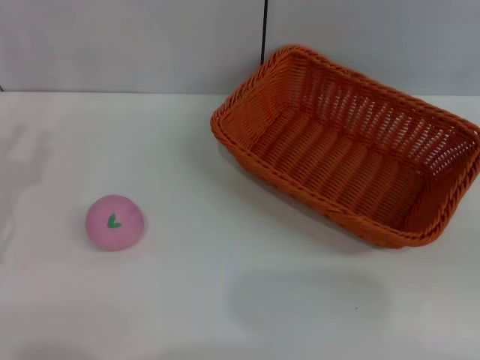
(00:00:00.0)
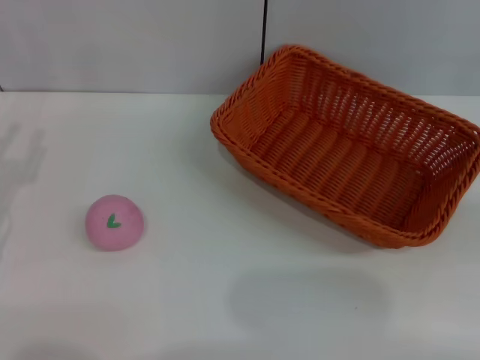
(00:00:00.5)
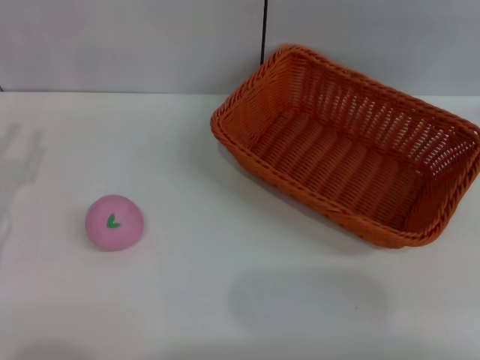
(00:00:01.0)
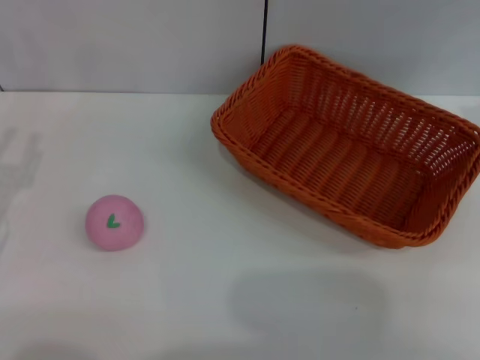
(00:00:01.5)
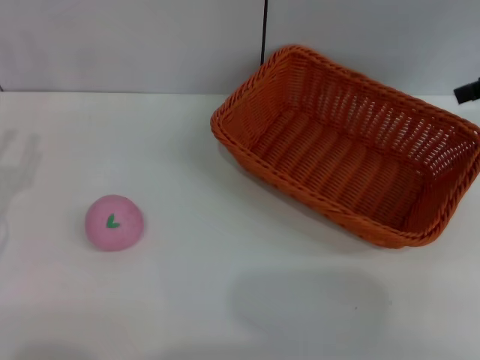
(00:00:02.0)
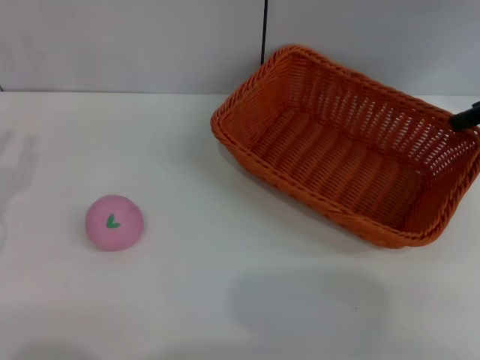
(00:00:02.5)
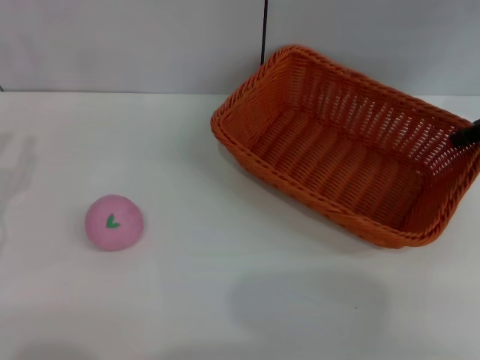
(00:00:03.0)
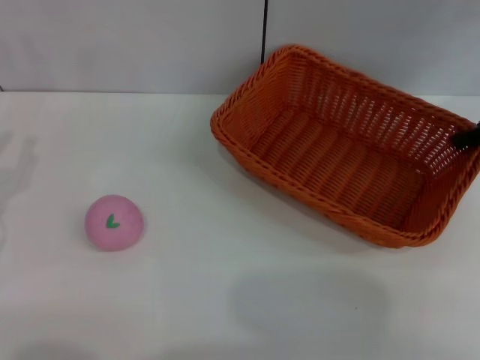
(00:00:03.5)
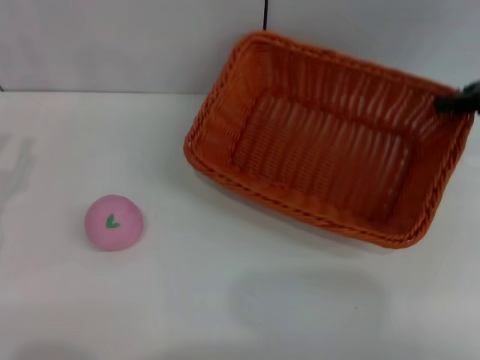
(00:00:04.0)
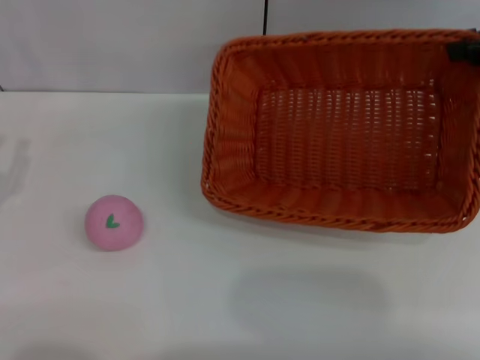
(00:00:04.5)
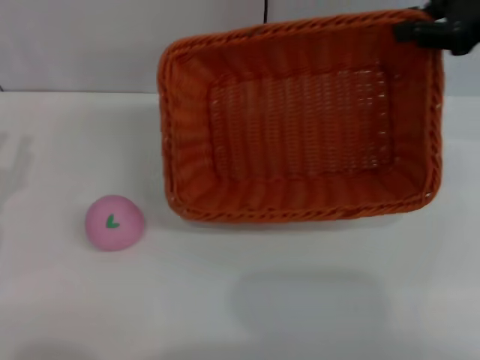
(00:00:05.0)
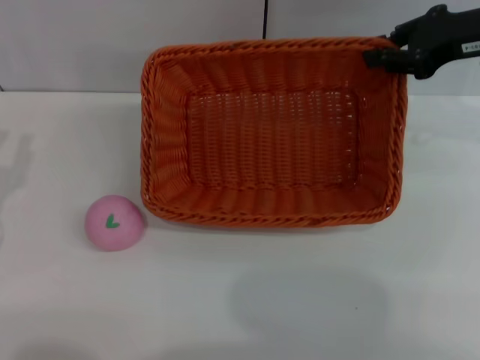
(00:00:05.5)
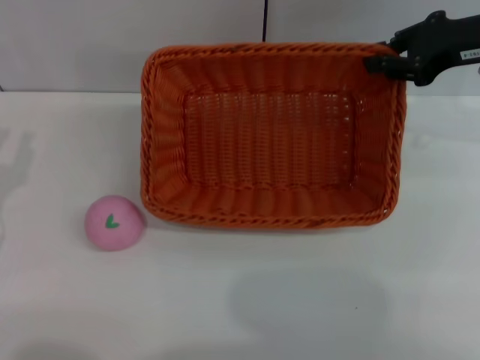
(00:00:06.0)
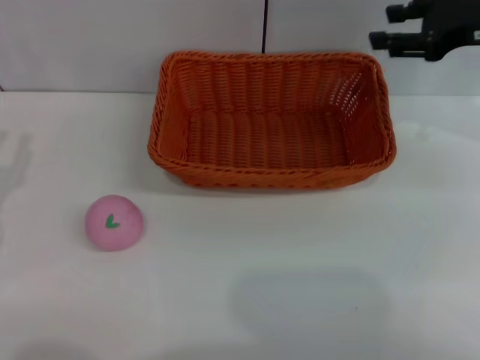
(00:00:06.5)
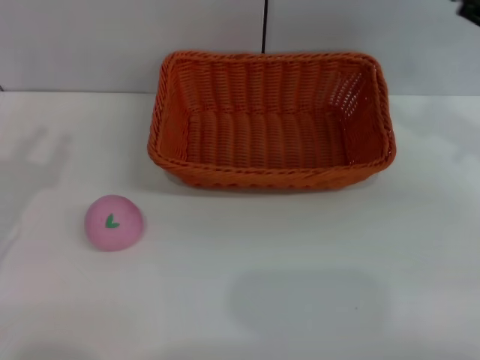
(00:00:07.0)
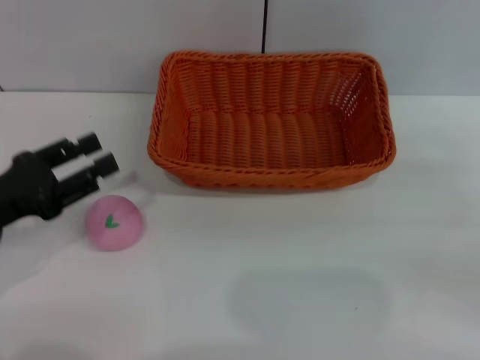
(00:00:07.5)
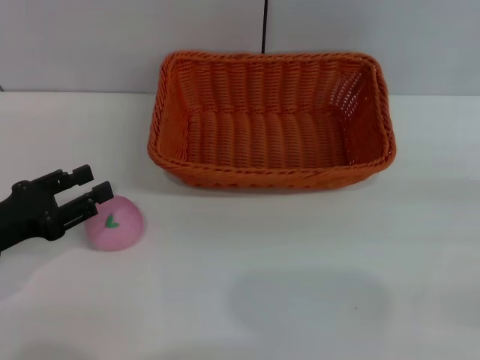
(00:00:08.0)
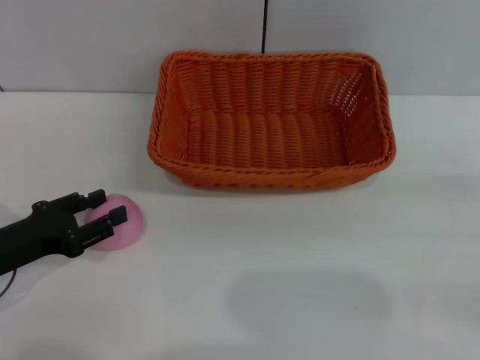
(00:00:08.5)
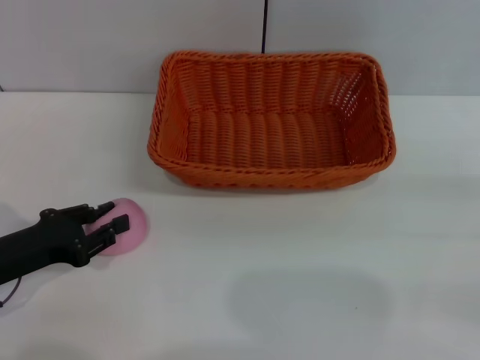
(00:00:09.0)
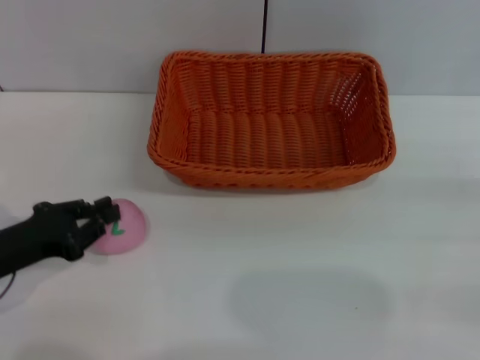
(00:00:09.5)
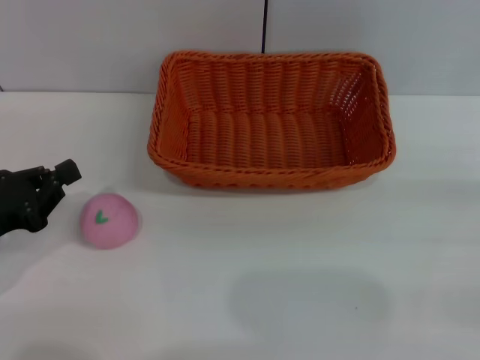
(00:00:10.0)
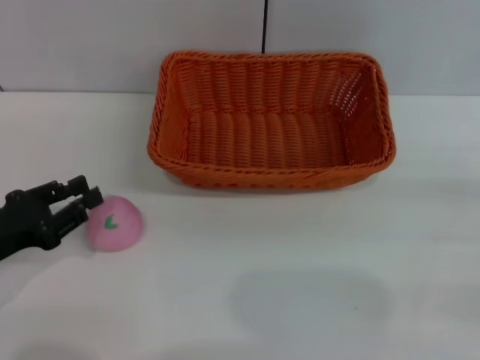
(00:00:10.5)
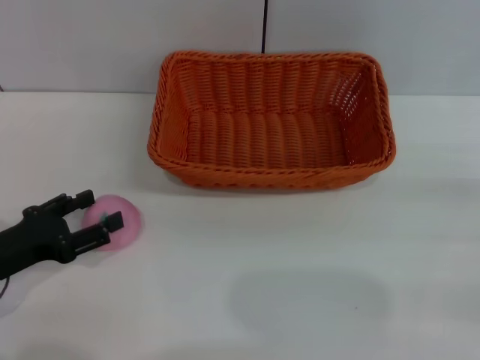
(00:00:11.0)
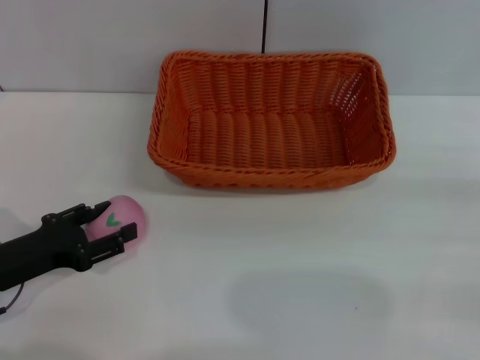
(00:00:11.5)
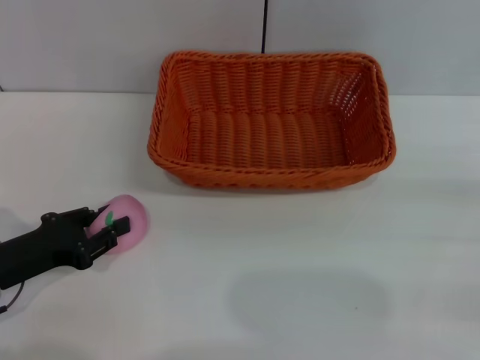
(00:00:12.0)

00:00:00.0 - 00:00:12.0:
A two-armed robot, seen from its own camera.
Step, 00:00:00.0 - 00:00:04.0: Pick up the light basket with the right gripper.
Step, 00:00:04.5 - 00:00:06.5: Place the light basket in the center of view with the right gripper.
00:00:02.0 - 00:00:04.0: The right gripper closes its fingers.
00:00:04.0 - 00:00:06.0: The right gripper changes place by roughly 5 cm.
00:00:06.0 - 00:00:08.0: The right gripper shifts some 25 cm backward, to the right and downward, and opens.
00:00:08.0 - 00:00:10.0: The left gripper closes.
00:00:10.0 - 00:00:12.0: The left gripper opens.

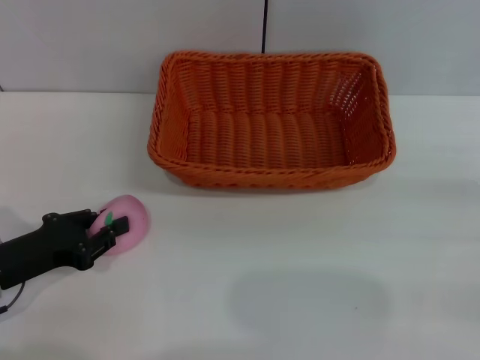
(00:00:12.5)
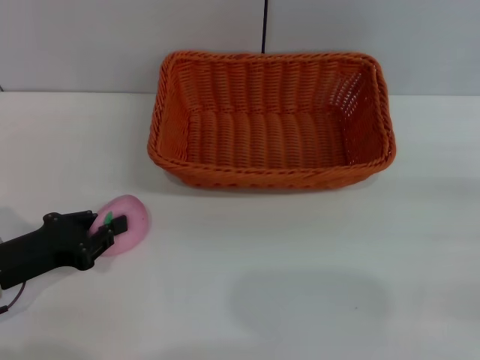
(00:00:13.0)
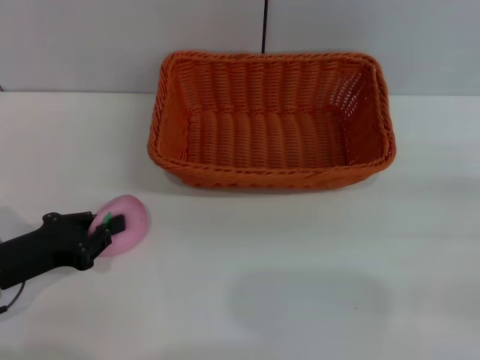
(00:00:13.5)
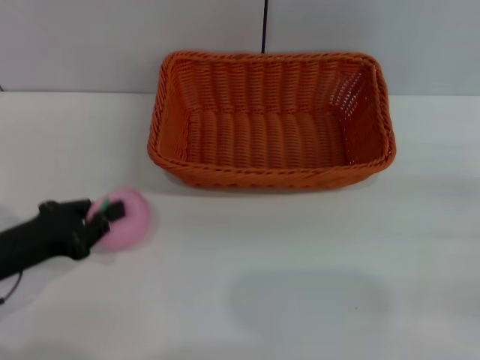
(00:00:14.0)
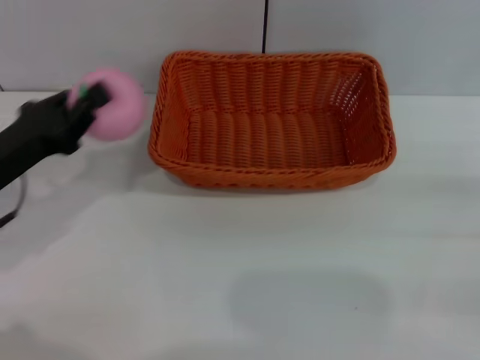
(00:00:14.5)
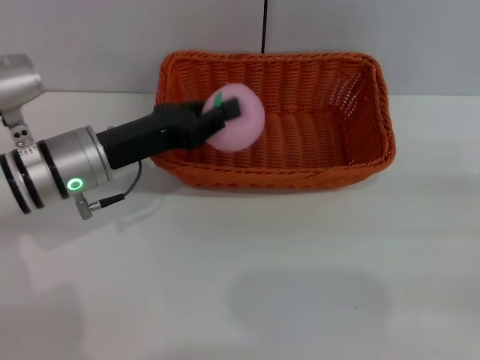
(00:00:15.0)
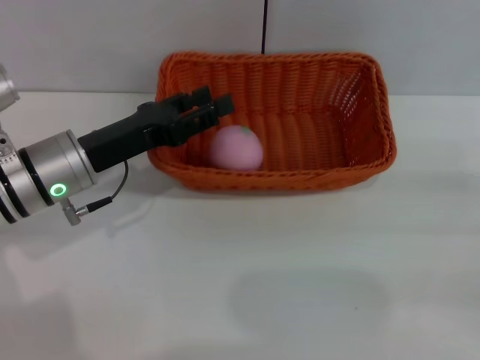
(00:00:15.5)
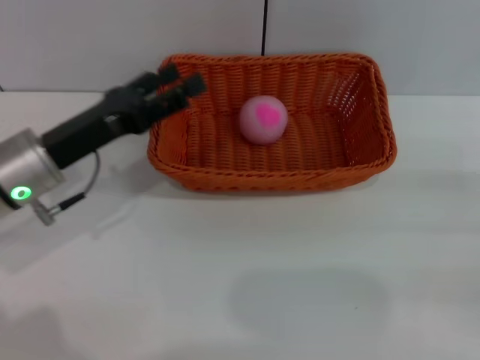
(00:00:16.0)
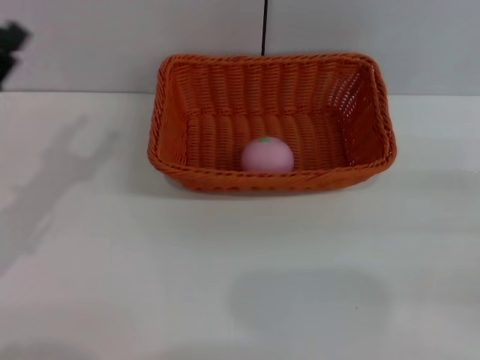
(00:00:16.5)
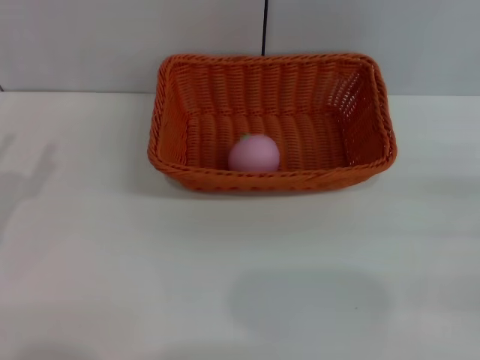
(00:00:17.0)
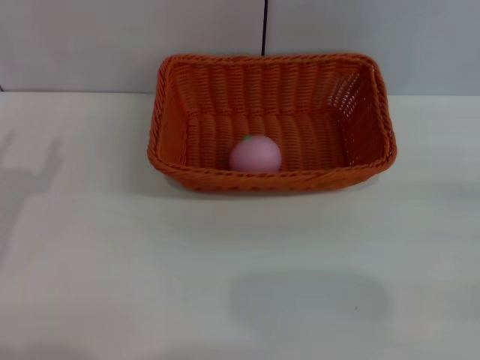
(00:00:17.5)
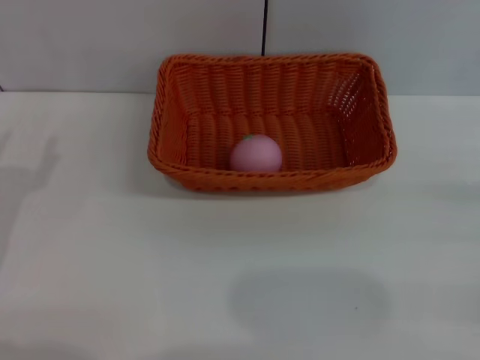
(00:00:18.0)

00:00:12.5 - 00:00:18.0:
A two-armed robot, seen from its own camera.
Step, 00:00:14.5 - 00:00:16.0: Place the peach into the basket with the left gripper.
00:00:12.5 - 00:00:14.5: The left gripper moves upward, approximately 5 cm.
00:00:14.5 - 00:00:16.0: The left gripper goes approximately 5 cm to the right, and opens.
00:00:16.0 - 00:00:18.0: The left gripper travels backward and to the left by about 10 cm.

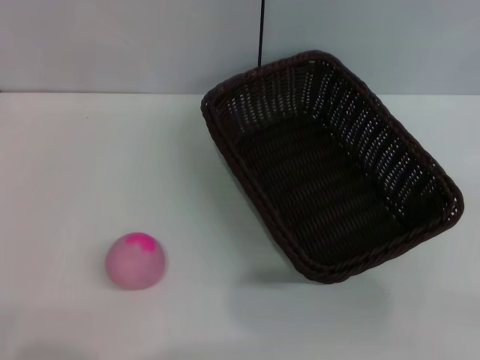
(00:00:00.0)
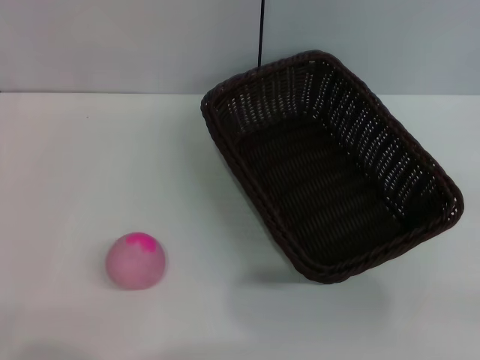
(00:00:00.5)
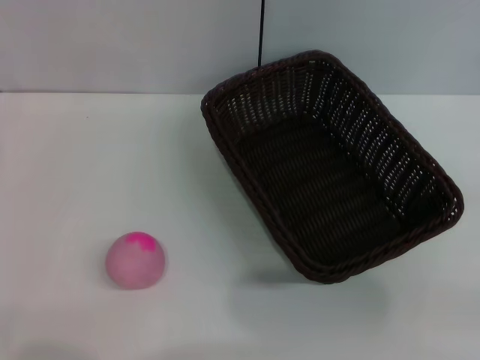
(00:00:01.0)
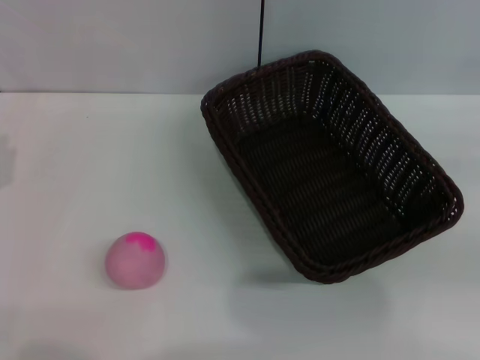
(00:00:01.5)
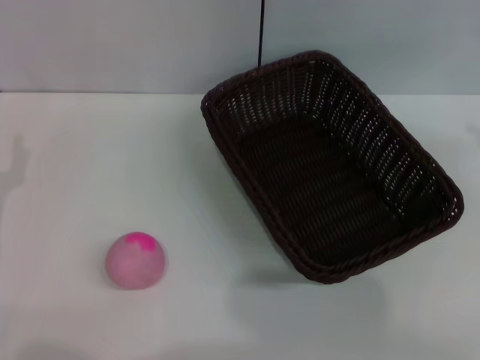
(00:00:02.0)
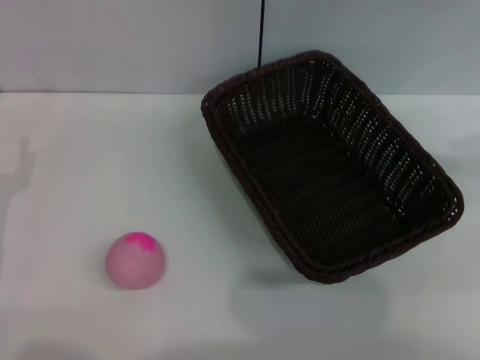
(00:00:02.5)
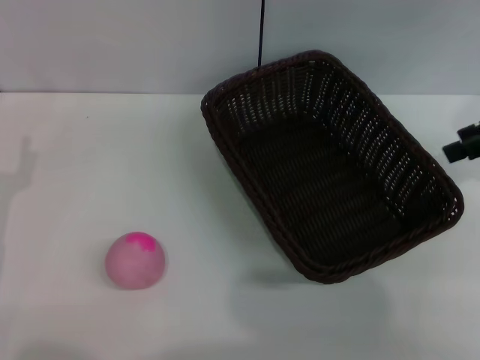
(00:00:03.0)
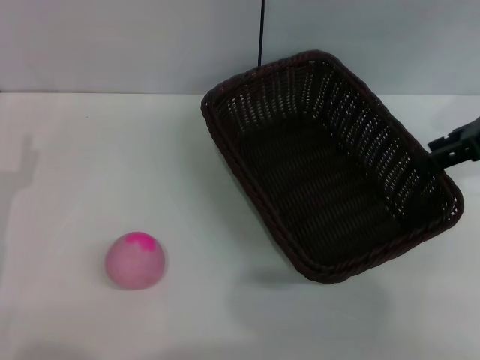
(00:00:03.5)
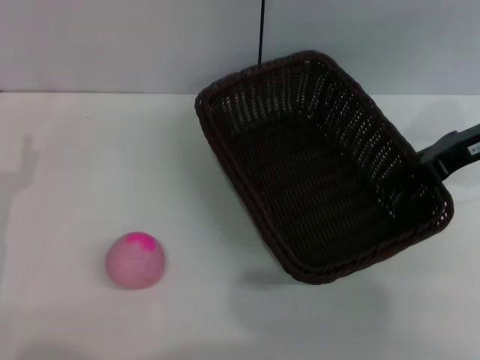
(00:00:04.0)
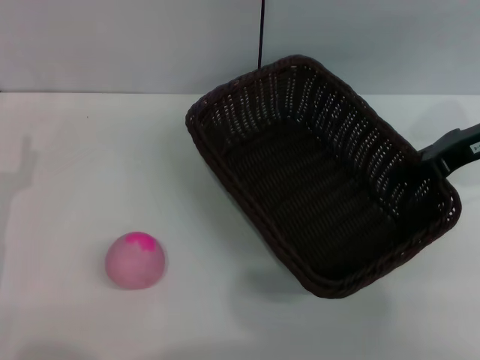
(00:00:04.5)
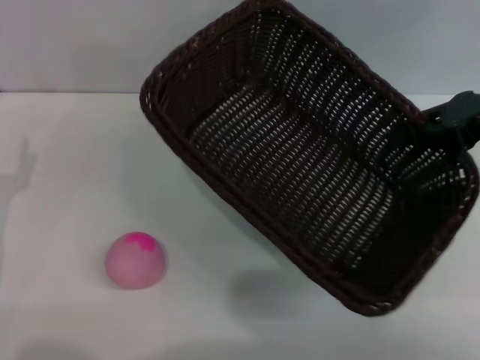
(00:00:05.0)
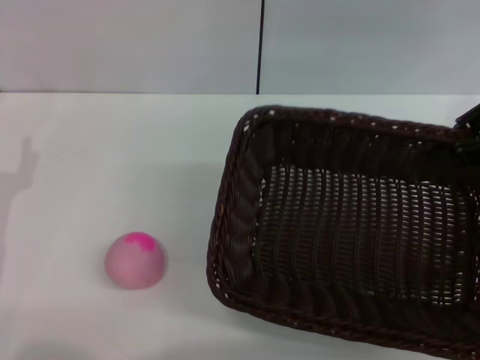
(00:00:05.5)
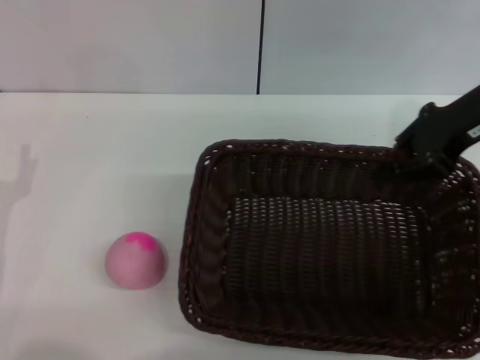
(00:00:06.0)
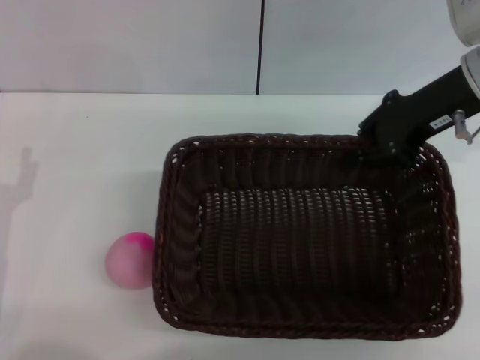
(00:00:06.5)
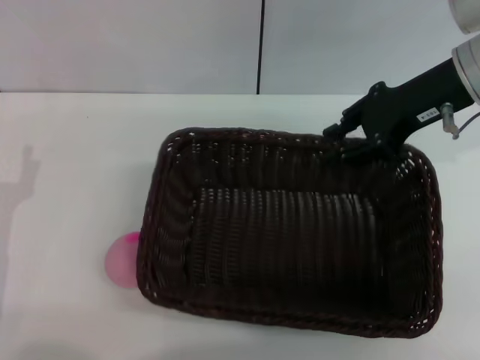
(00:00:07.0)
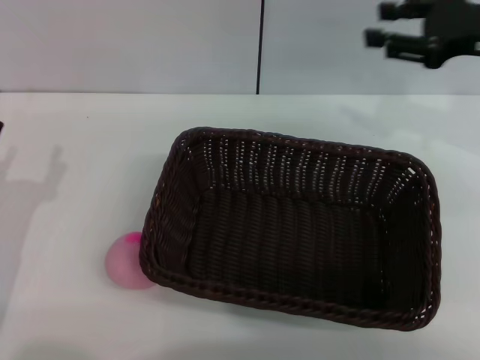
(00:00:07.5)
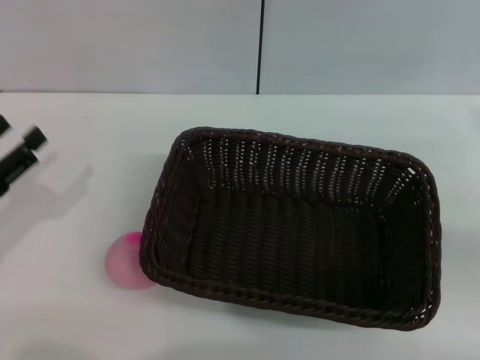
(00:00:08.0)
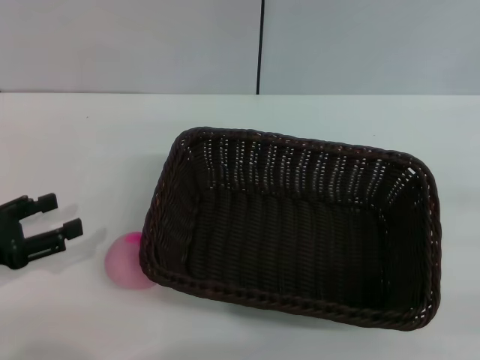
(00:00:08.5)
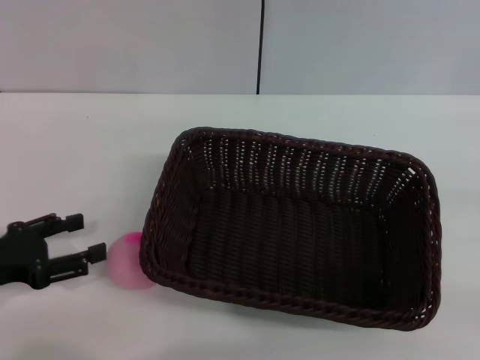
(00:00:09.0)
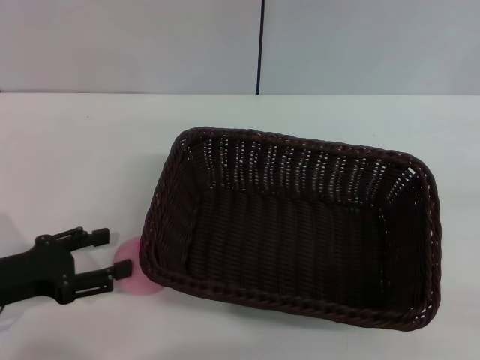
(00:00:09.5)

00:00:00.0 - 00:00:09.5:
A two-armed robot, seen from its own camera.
Step, 00:00:00.0 - 00:00:05.0: Pick up the dark basket with the right gripper.
Step, 00:00:05.5 - 00:00:07.0: Place the dark basket in the center of view with the right gripper.
00:00:02.0 - 00:00:04.0: The right gripper goes about 20 cm to the left, downward and forward.
00:00:04.0 - 00:00:05.5: The right gripper moves upward, about 5 cm, and closes up.
00:00:05.5 - 00:00:07.5: The right gripper moves roughly 10 cm to the left and comes back, and opens its fingers.
00:00:07.5 - 00:00:09.5: The right gripper moves backward, downward and to the right, some 25 cm.
